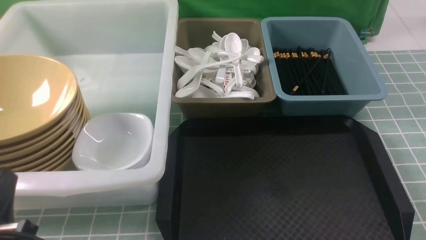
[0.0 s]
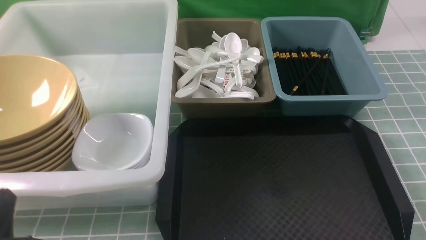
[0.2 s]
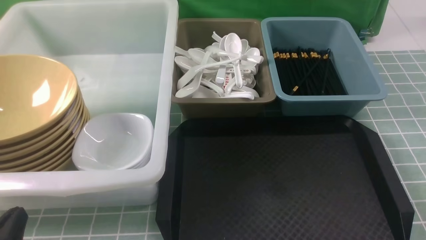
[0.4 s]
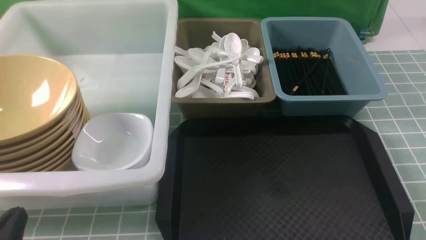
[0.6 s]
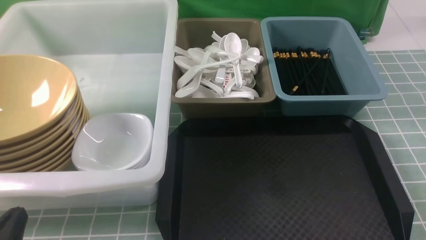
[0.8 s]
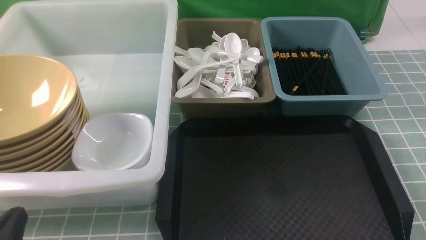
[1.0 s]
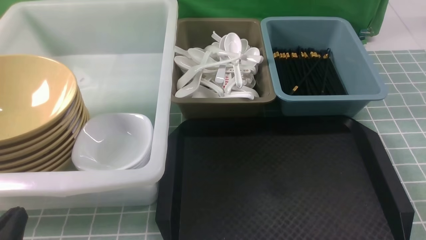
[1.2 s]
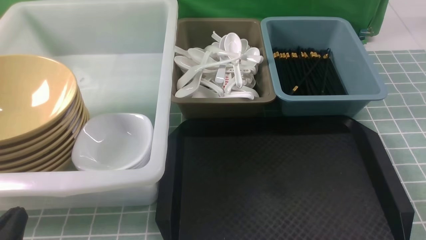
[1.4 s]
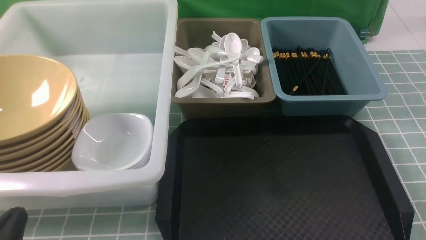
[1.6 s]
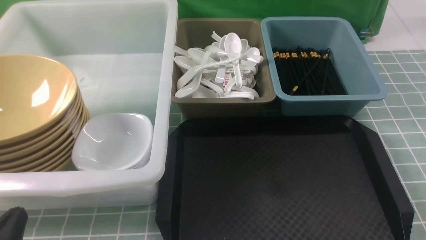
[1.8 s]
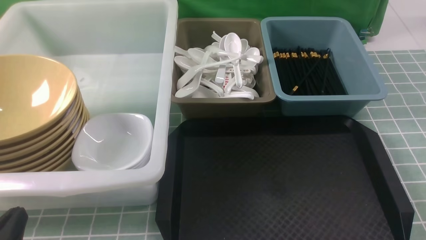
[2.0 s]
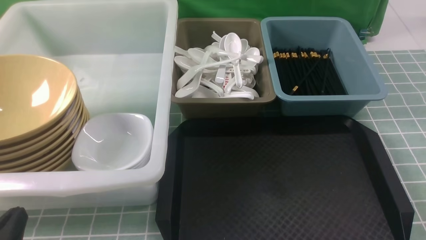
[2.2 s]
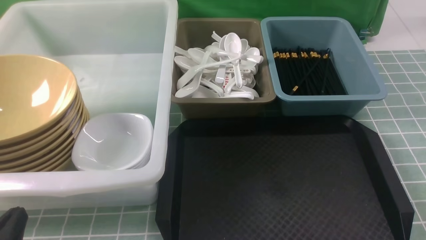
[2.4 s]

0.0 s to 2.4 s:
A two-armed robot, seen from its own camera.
Task of the whole recording: on blue table put chopsticks spoon bowls plates into blue grey white boxes.
0.0 to 1.2 s: The grippers move only a little.
1.2 to 2.4 s: Both grippers stay about where they are.
